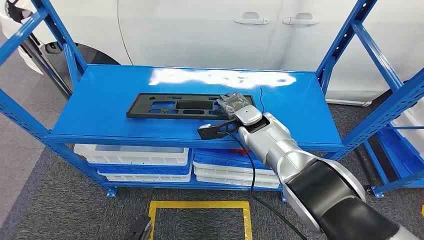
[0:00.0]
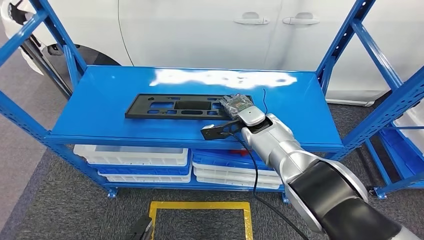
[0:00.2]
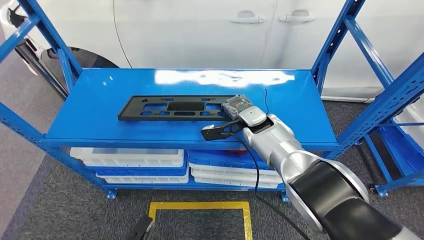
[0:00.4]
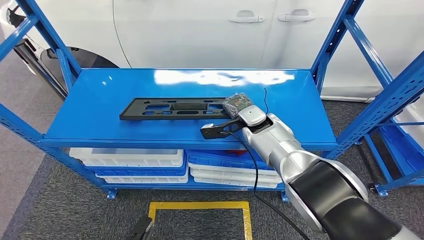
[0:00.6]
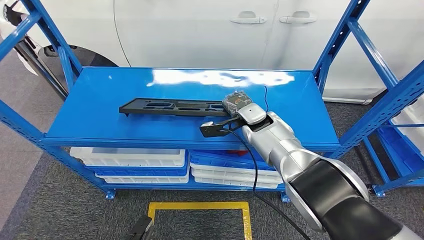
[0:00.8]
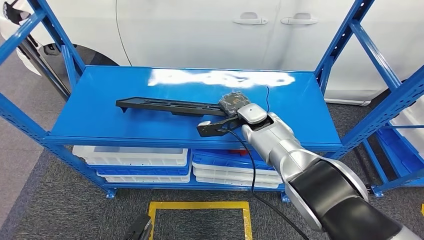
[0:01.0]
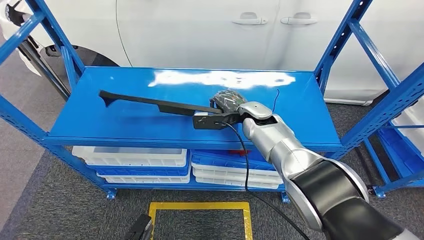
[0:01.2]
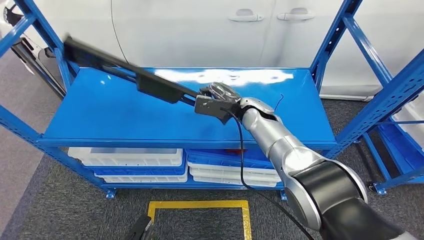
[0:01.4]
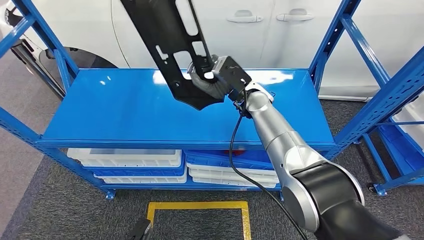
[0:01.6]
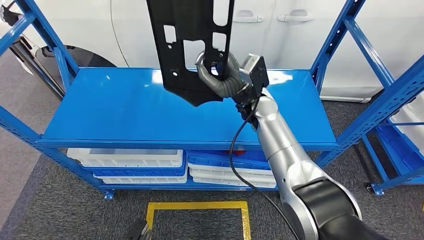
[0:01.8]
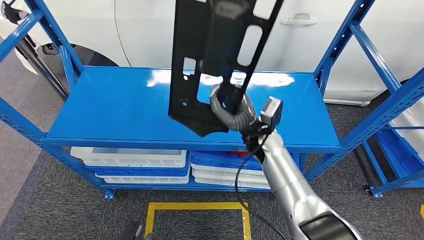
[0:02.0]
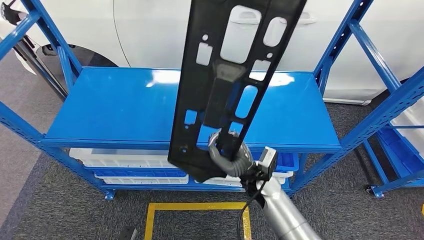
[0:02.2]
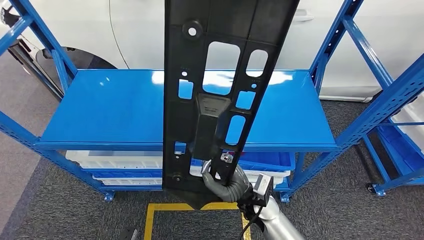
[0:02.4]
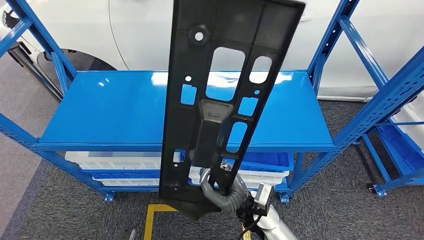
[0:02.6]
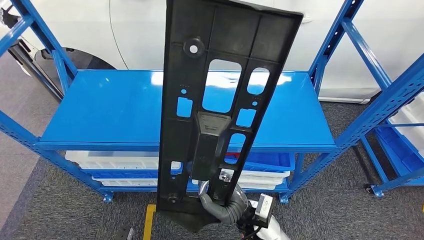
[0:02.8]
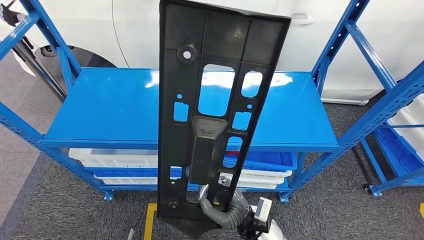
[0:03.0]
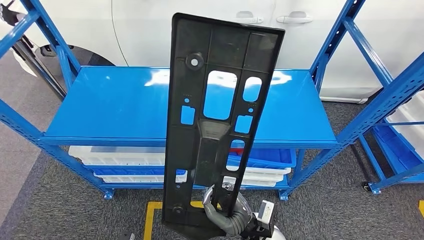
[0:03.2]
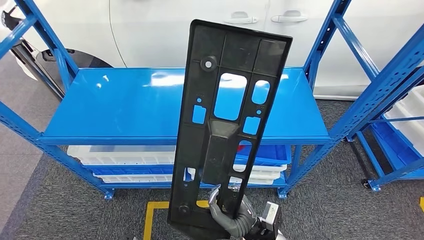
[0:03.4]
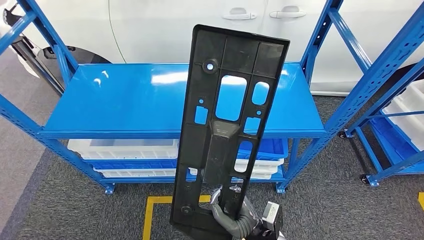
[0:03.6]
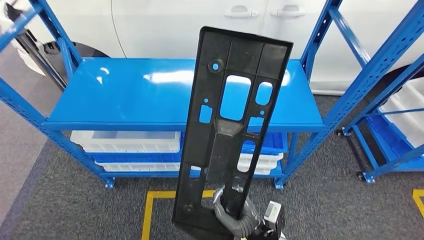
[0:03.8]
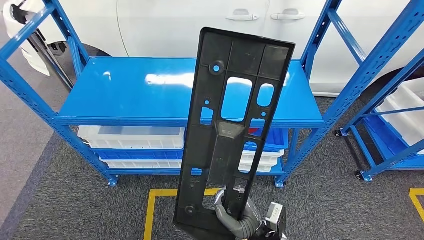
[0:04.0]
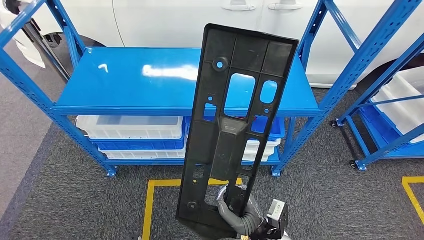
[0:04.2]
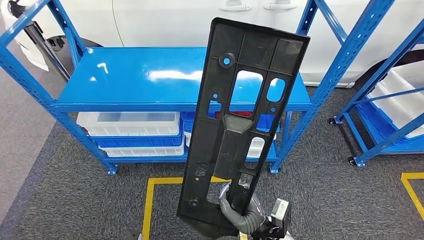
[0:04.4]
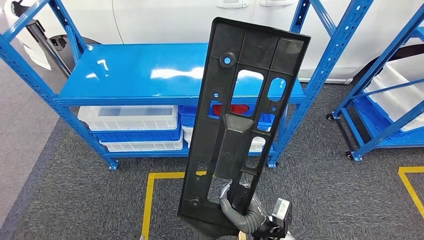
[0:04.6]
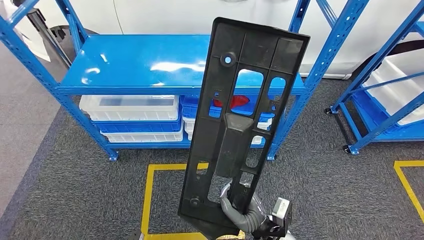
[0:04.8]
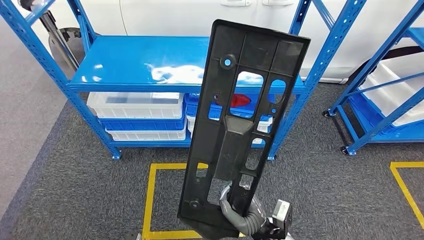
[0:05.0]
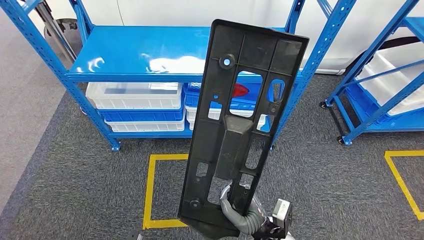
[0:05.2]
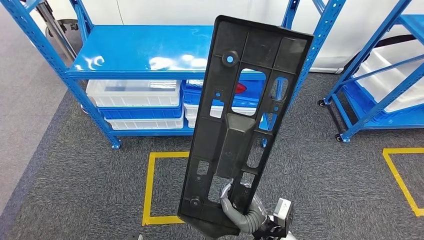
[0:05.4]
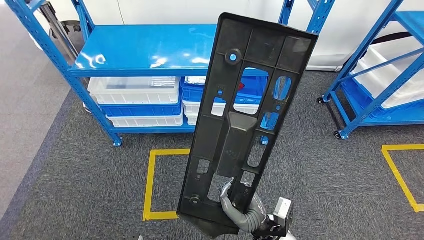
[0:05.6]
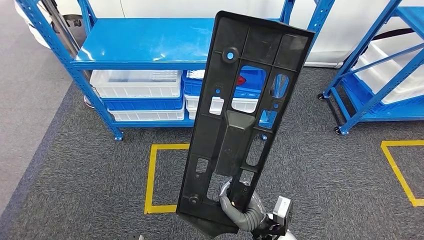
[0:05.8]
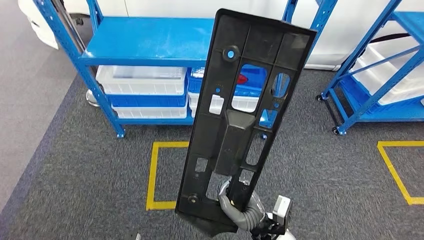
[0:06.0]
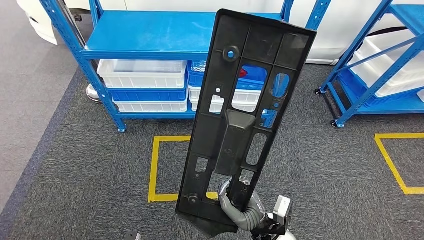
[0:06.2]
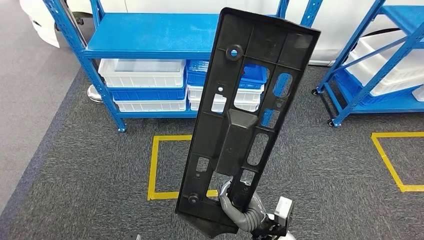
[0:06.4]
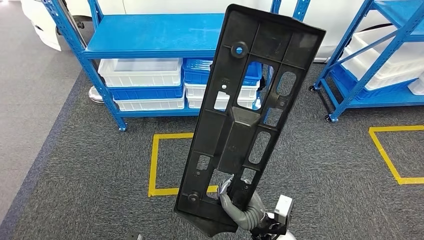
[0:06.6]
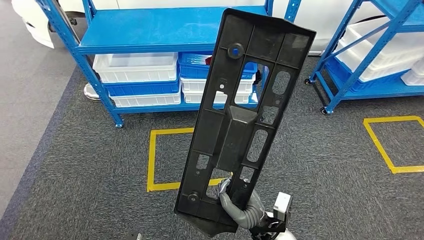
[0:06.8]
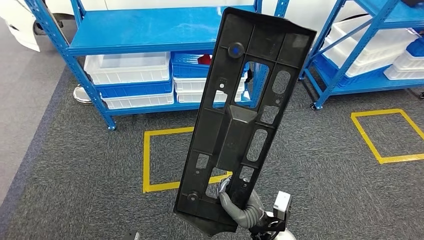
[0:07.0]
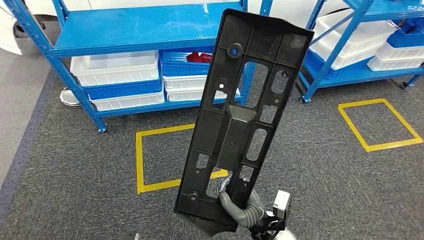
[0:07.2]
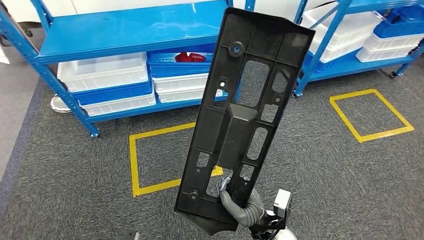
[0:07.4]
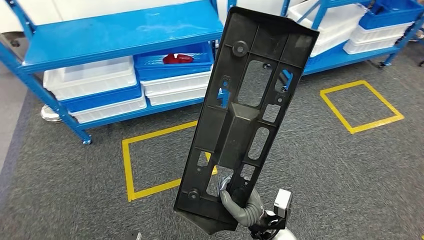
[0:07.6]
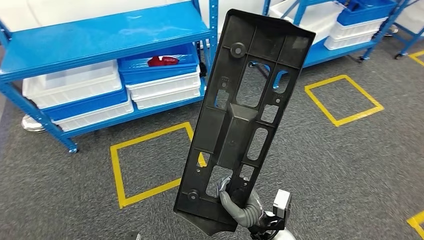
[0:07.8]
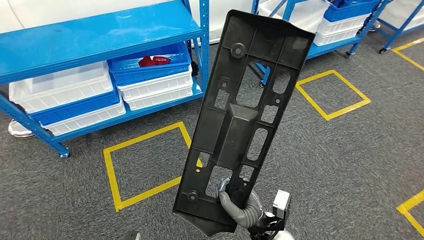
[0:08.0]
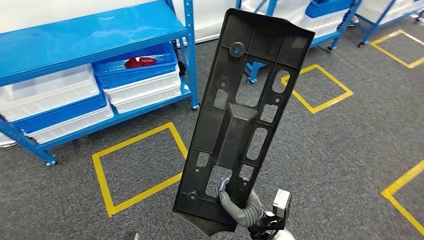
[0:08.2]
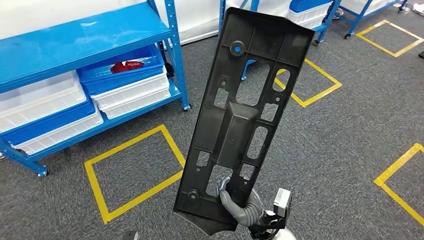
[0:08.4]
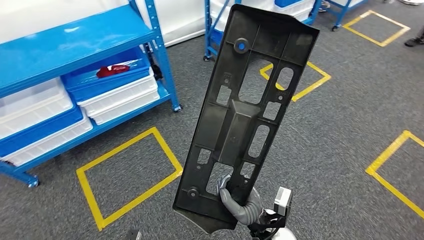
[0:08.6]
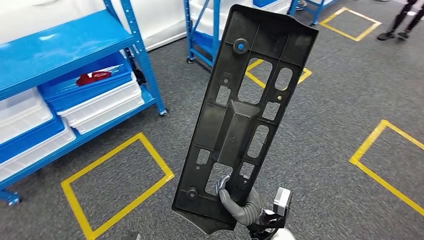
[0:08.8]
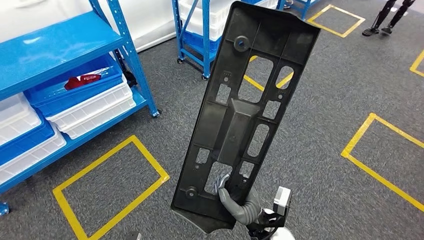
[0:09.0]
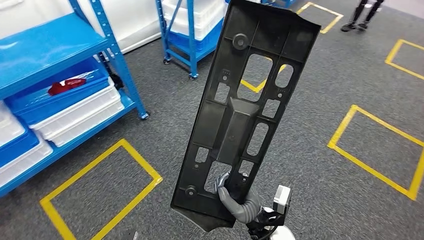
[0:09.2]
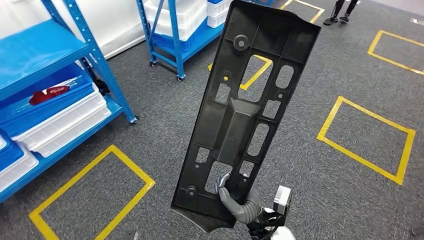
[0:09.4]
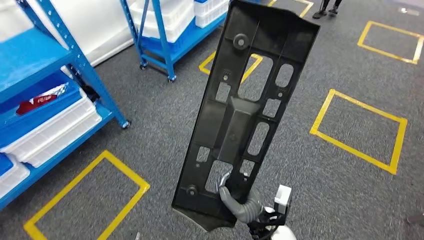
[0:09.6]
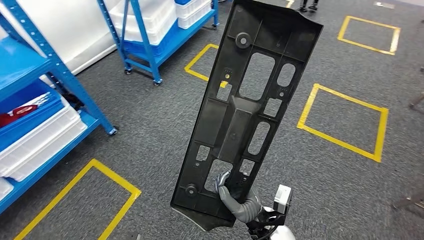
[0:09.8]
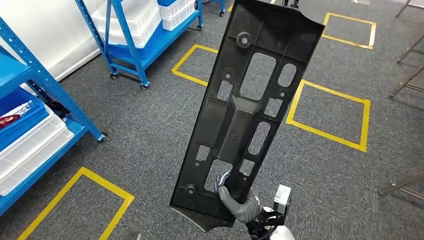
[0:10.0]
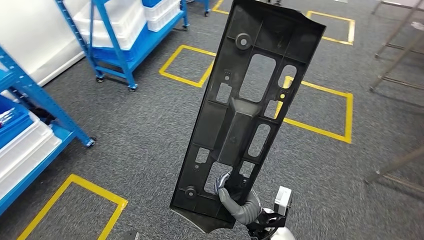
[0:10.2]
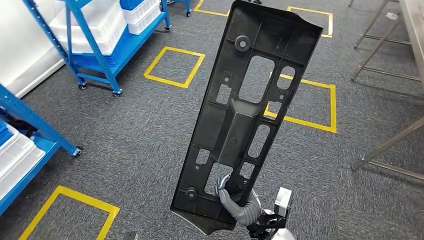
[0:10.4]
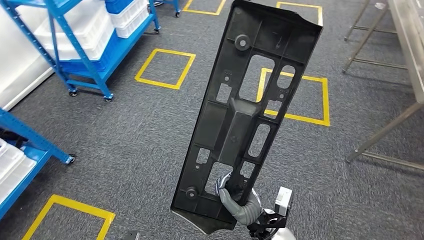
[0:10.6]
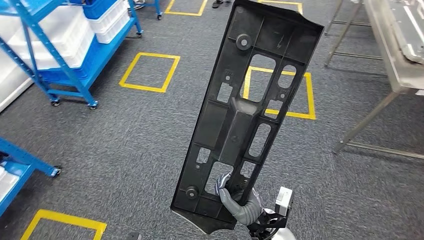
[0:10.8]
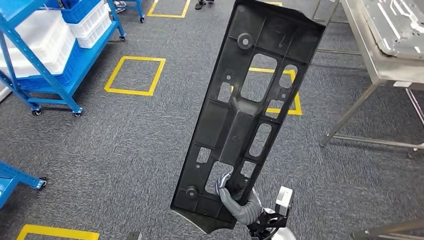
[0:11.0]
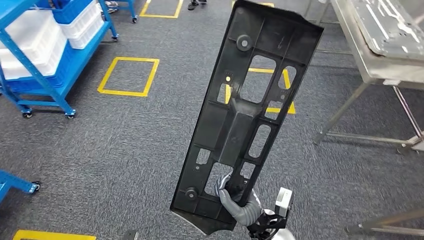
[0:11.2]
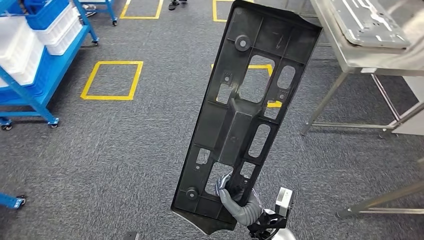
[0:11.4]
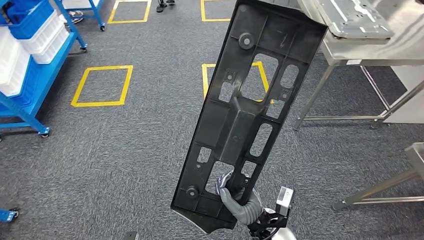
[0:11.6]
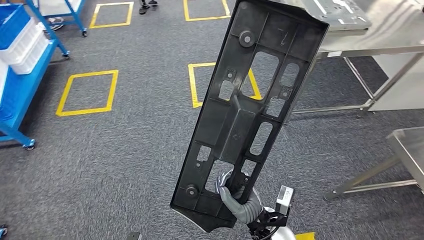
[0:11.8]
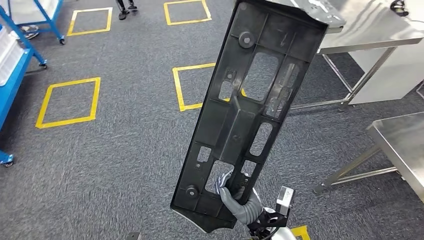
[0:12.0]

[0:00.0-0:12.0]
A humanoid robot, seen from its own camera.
Step, 0:00.0 to 0:02.2: Pick up the large material from the shelf.

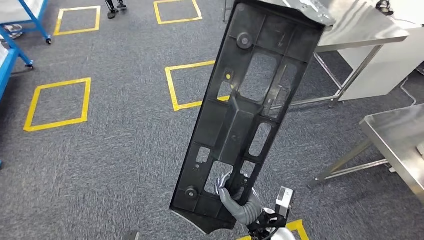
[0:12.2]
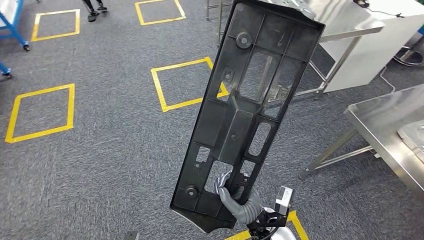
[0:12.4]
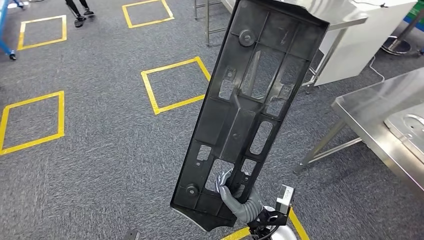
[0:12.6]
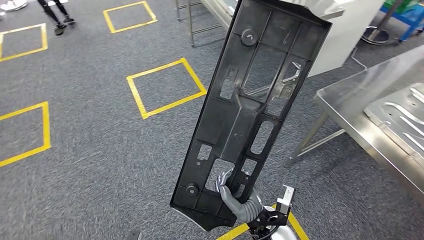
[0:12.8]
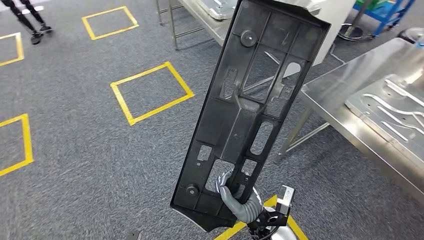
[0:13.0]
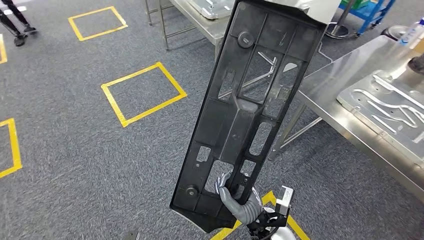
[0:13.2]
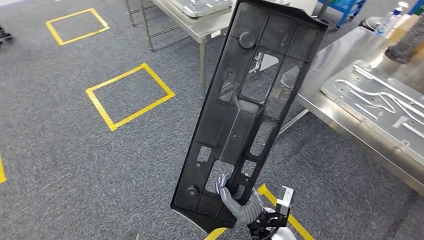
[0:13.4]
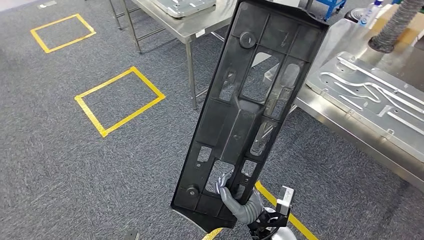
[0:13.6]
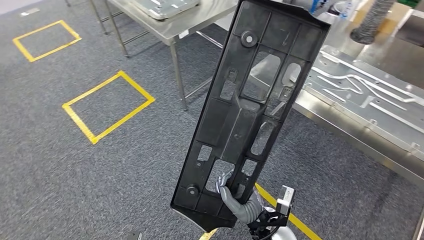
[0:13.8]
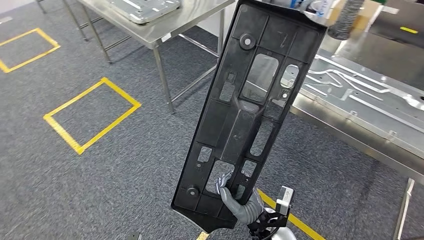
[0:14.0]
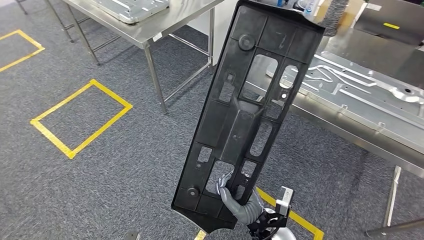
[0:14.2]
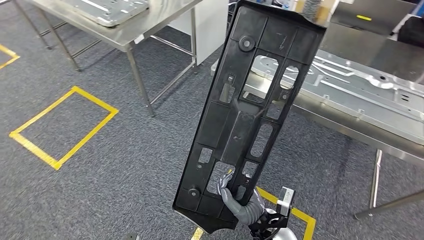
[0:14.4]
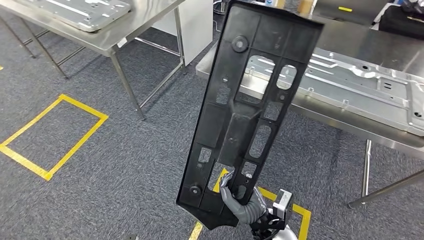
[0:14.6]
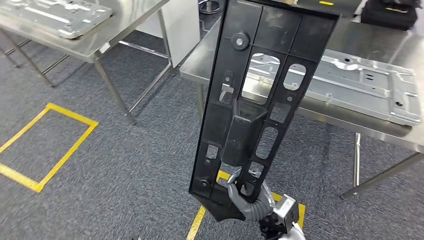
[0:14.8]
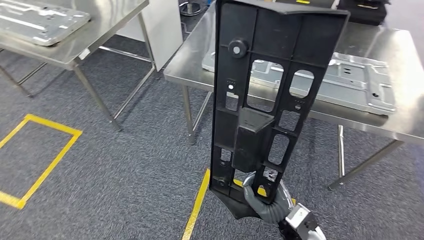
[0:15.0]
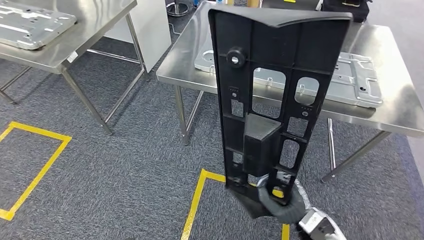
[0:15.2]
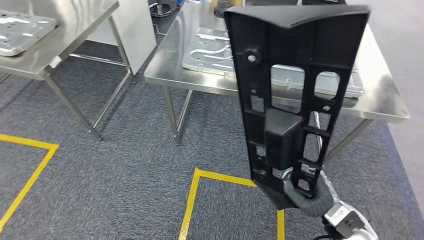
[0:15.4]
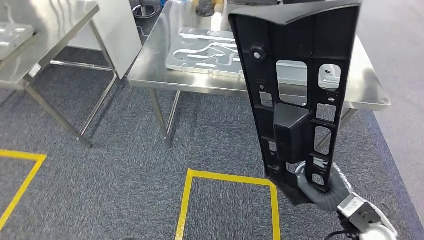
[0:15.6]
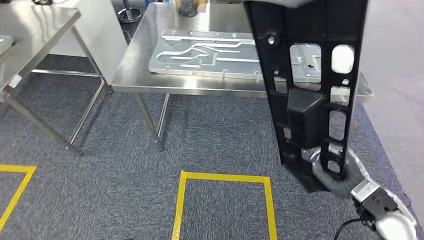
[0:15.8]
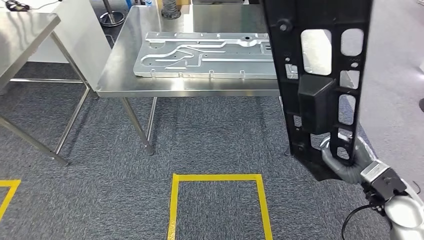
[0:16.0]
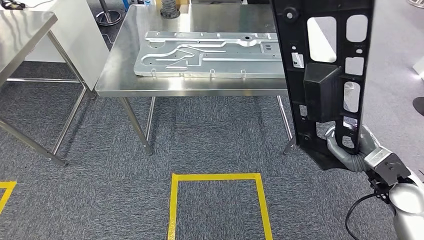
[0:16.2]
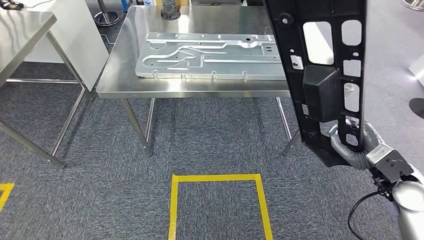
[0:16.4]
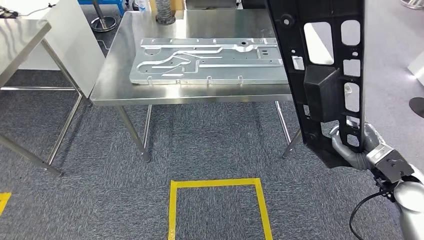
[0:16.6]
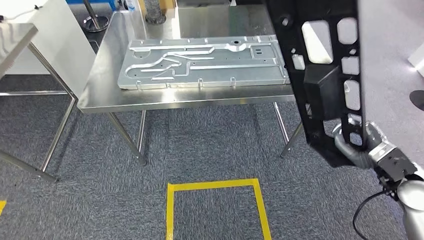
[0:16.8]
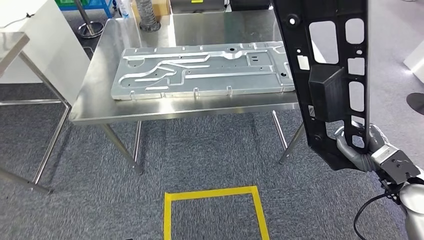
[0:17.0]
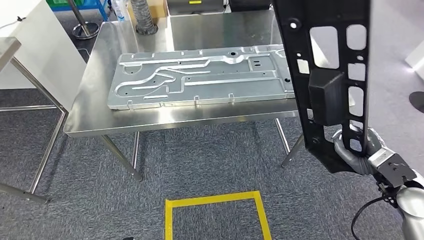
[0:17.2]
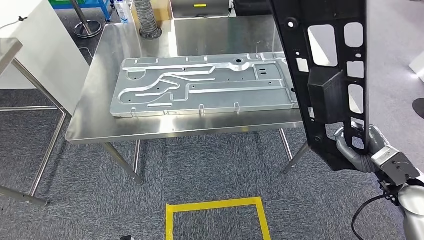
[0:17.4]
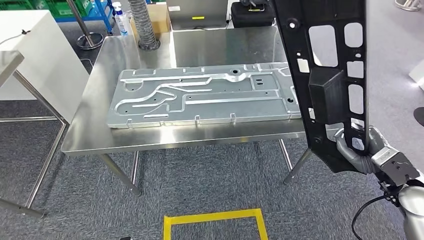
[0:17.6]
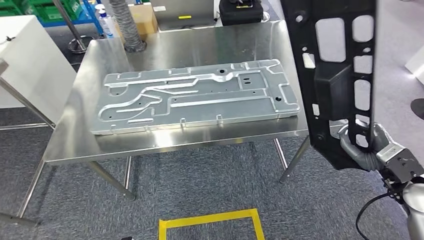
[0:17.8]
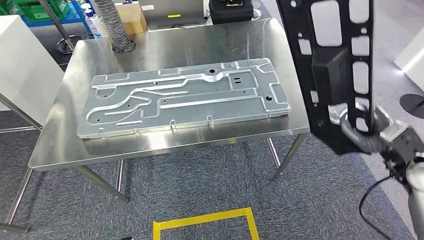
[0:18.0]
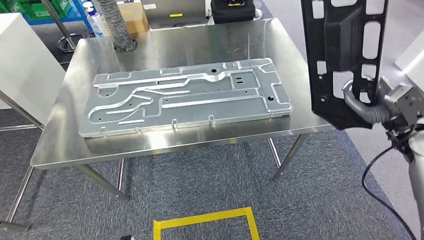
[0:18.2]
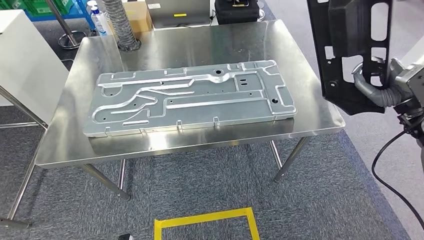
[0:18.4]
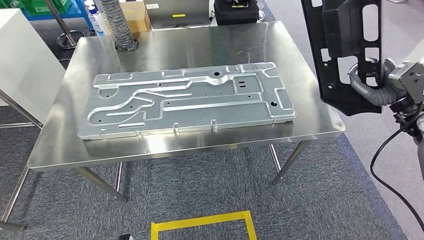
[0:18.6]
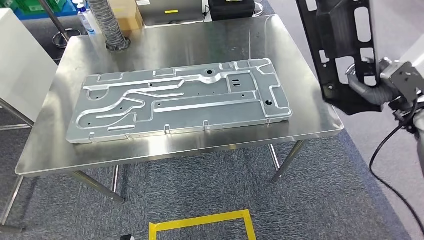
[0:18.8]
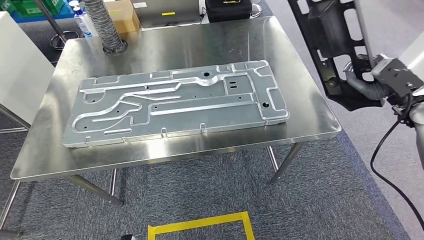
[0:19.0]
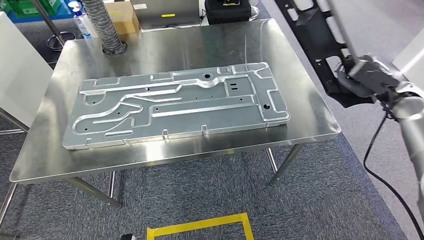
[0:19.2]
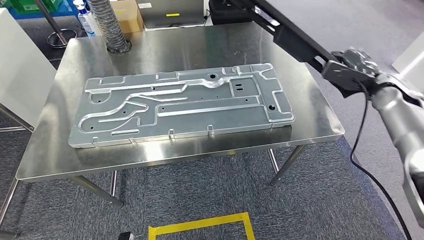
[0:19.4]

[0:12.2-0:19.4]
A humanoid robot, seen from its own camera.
Step, 0:12.2 to 0:17.6: Move the large material to the workbench.
